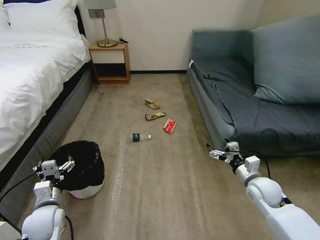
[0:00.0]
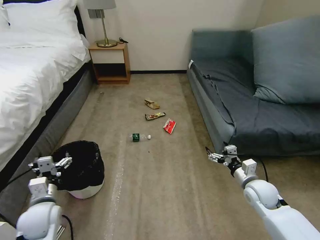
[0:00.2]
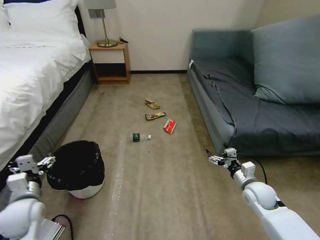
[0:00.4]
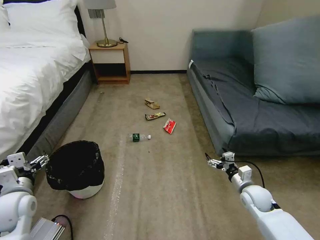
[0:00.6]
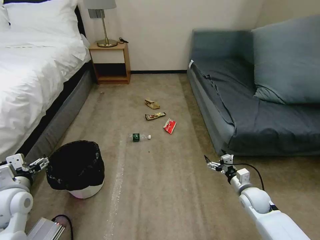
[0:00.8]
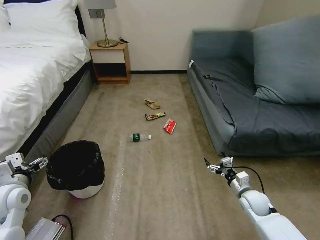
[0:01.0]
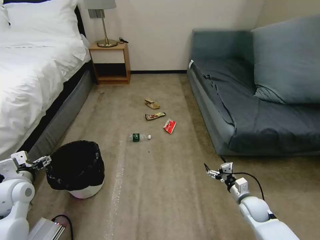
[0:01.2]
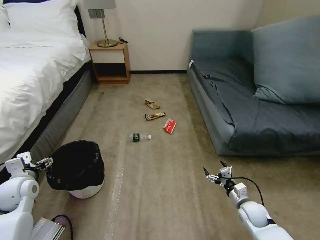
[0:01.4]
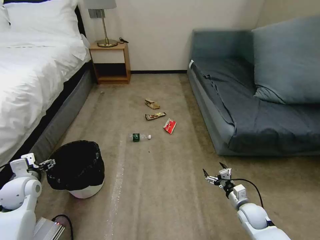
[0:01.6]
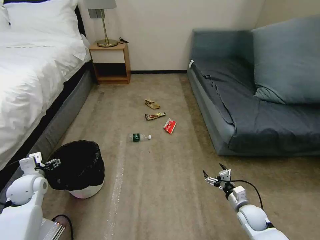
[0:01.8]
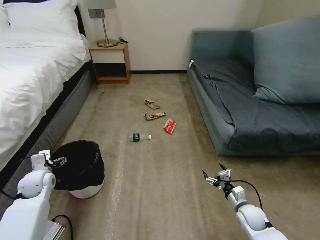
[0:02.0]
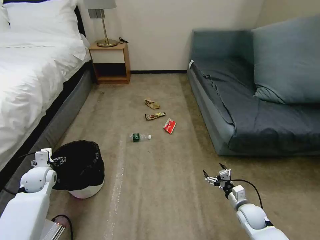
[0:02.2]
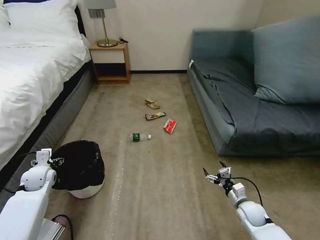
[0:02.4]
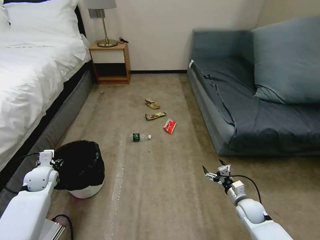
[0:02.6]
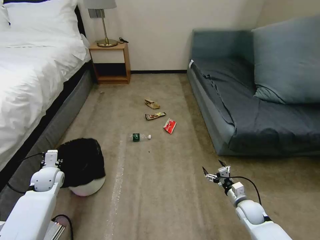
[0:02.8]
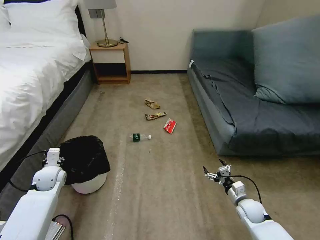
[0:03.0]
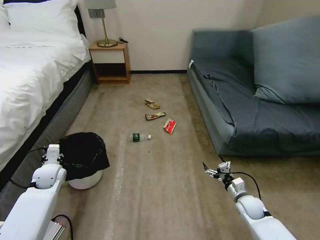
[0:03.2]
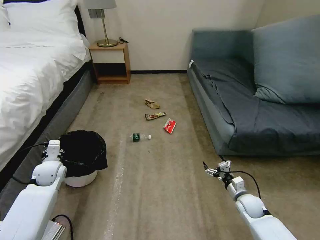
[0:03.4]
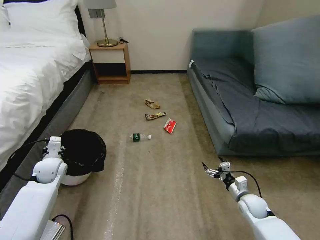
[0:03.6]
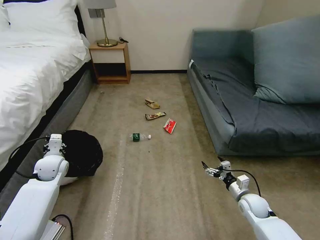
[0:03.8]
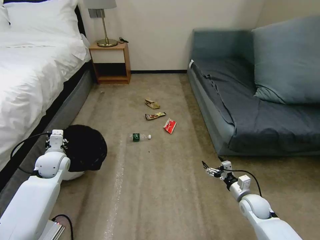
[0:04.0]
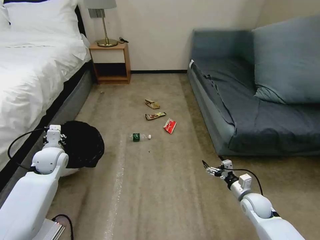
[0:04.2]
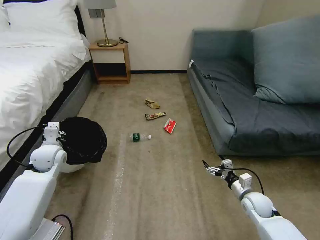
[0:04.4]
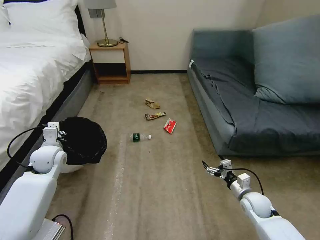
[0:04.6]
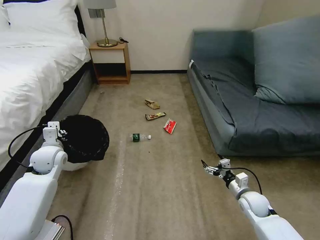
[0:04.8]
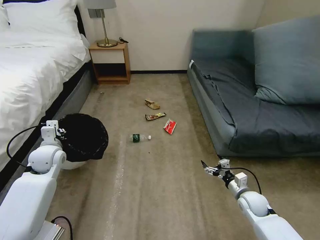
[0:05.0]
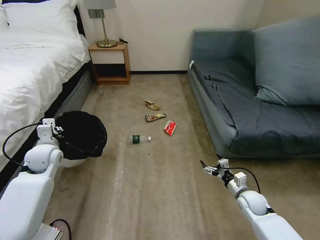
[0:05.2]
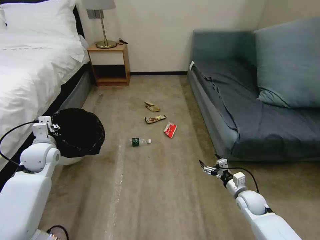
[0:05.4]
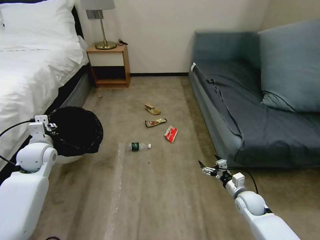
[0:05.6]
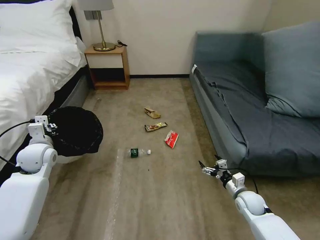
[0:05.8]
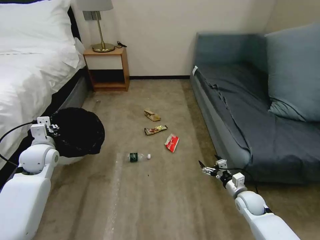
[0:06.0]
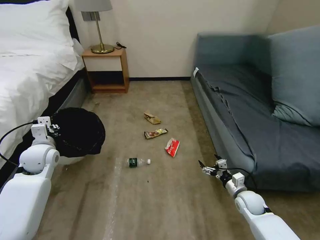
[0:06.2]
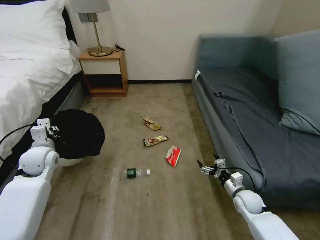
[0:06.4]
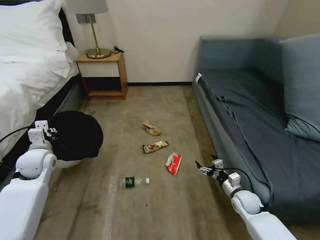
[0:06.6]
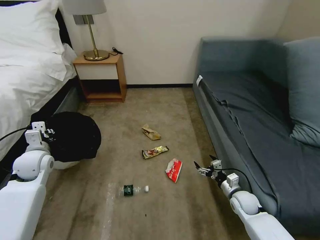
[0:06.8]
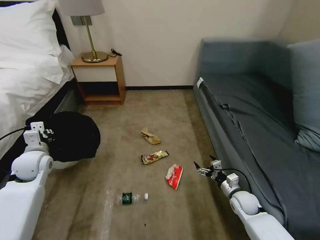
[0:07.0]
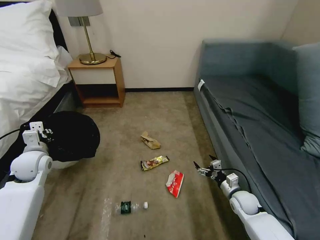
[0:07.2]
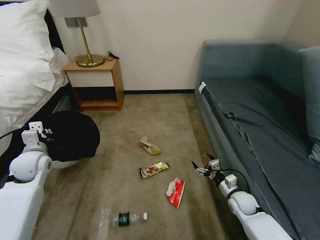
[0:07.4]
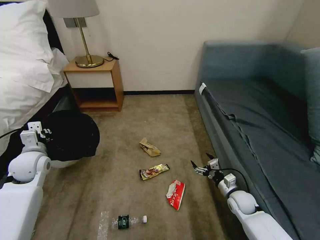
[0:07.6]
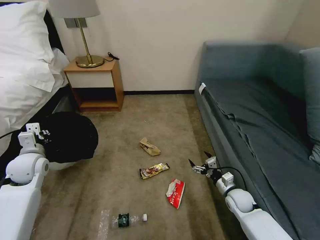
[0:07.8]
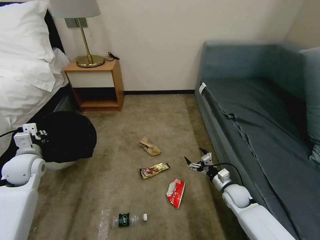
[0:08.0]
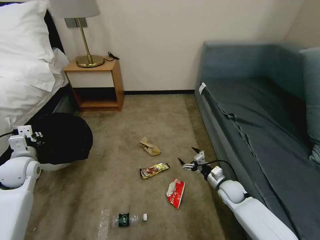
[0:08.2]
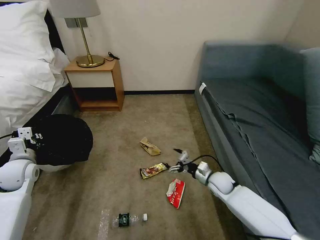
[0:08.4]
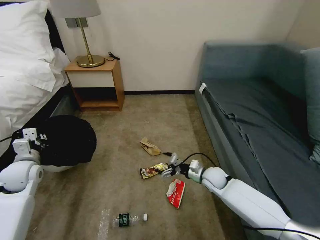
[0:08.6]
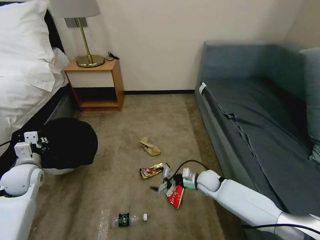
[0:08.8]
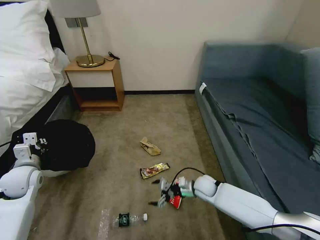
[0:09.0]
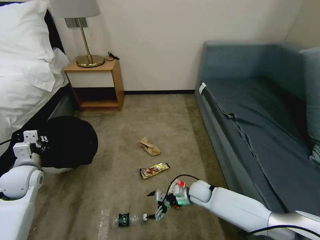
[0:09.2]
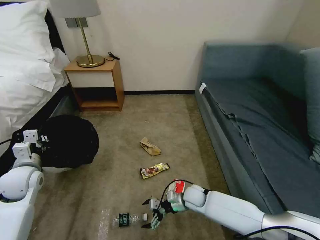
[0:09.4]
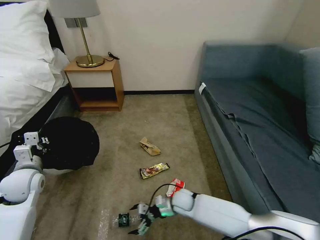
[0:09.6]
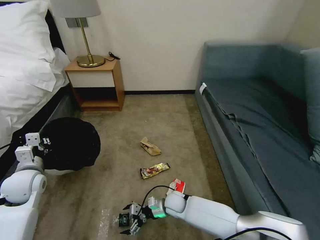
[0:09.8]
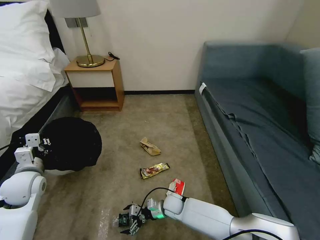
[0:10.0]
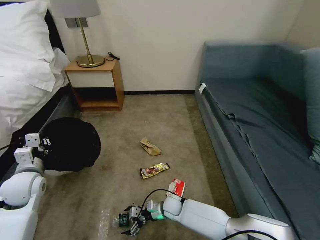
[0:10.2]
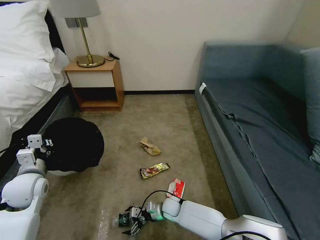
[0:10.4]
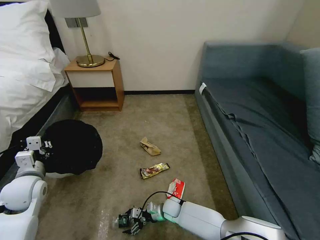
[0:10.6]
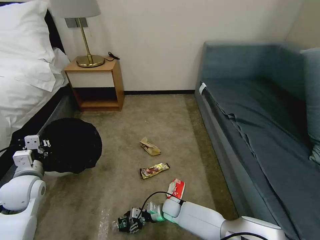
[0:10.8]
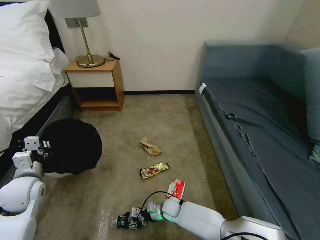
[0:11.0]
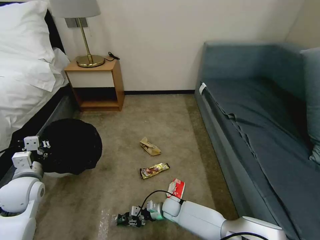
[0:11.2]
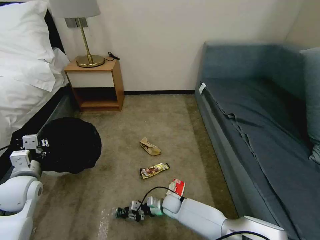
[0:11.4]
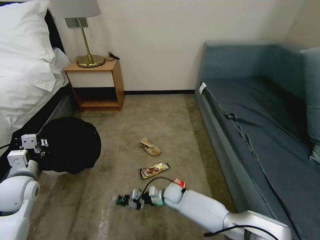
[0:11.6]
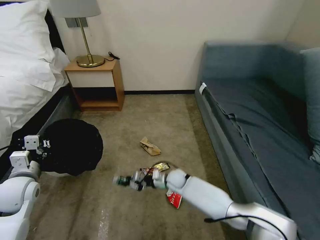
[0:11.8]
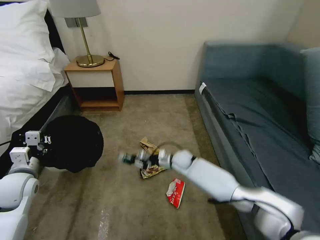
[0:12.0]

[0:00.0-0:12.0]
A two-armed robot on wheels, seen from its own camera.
Task of the whole recording: Pick up the trash bin, then pick up the garbage on the floor and place it into the trash bin.
0:00.0 to 0:01.6: The left gripper moves to the left and forward, roughly 10 cm; the right gripper goes roughly 15 cm downward.
0:01.6 to 0:03.0: The left gripper heads forward and downward, covering approximately 10 cm, and closes up.
0:03.0 to 0:04.4: The left gripper travels upward by approximately 10 cm. Meanwhile the right gripper moves approximately 5 cm.
0:07.6 to 0:09.0: The right gripper is displaced to the left and forward by about 15 cm.
0:09.0 to 0:10.4: The right gripper travels to the left and downward by some 15 cm. Meanwhile the left gripper ends up roughly 5 cm from where it was.
0:10.4 to 0:12.0: The right gripper heads forward and upward, covering roughly 20 cm, and closes its fingers.

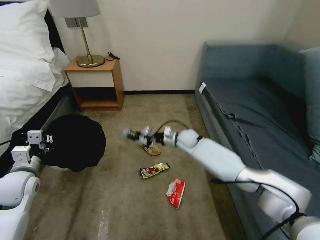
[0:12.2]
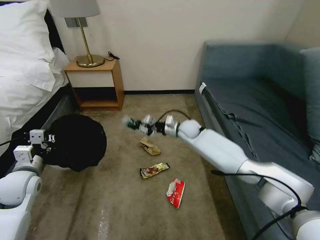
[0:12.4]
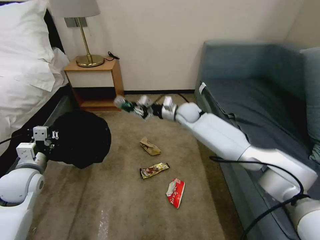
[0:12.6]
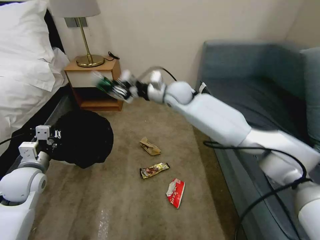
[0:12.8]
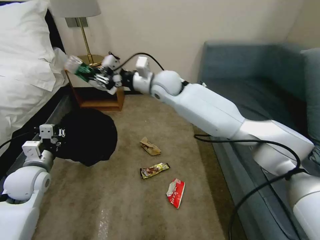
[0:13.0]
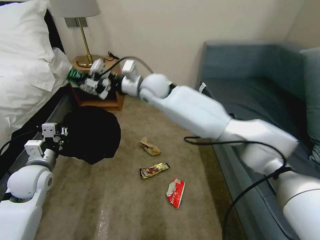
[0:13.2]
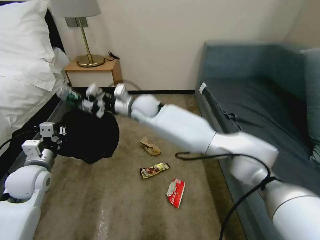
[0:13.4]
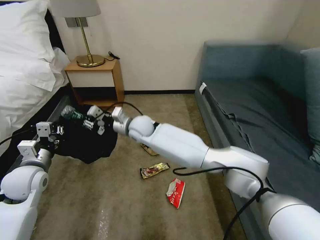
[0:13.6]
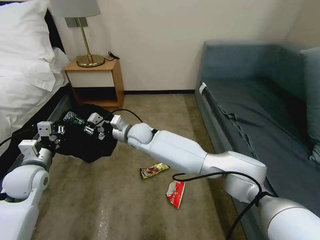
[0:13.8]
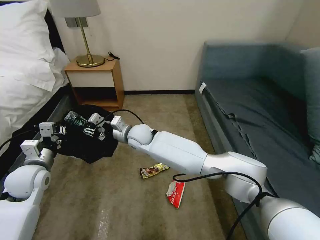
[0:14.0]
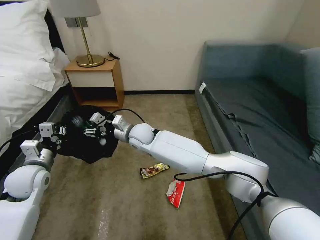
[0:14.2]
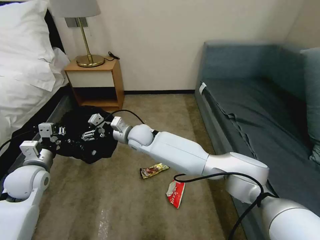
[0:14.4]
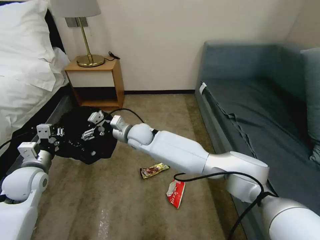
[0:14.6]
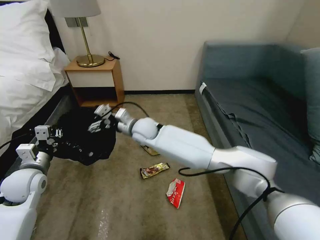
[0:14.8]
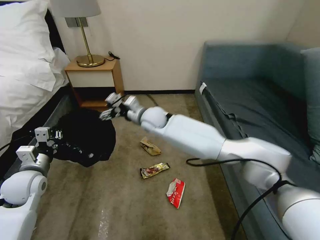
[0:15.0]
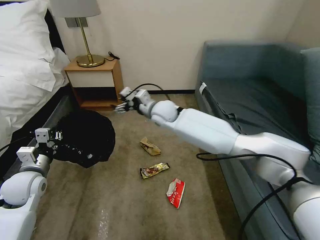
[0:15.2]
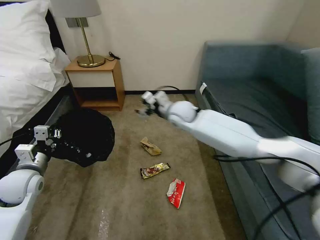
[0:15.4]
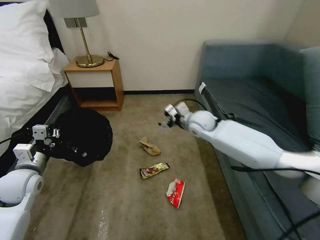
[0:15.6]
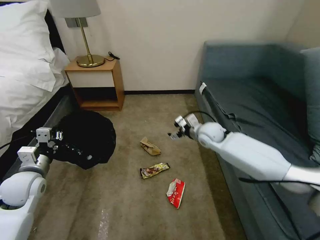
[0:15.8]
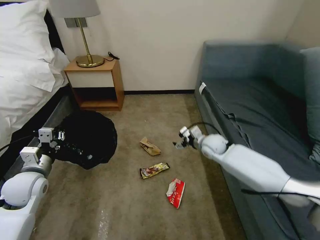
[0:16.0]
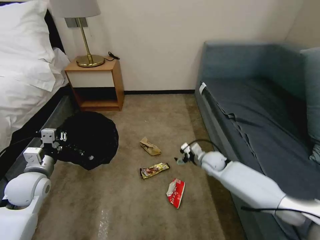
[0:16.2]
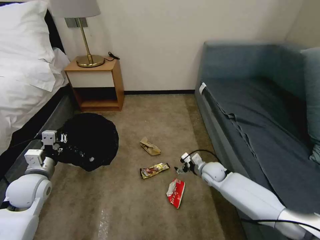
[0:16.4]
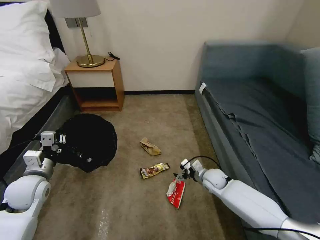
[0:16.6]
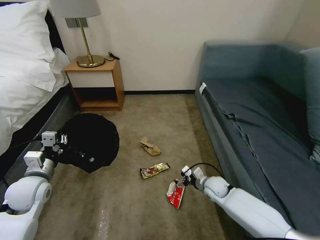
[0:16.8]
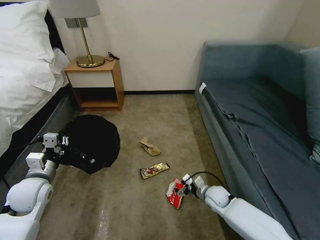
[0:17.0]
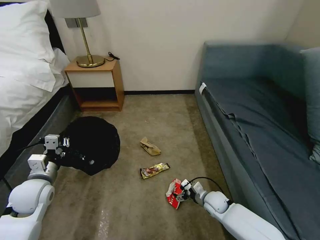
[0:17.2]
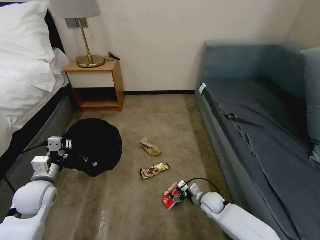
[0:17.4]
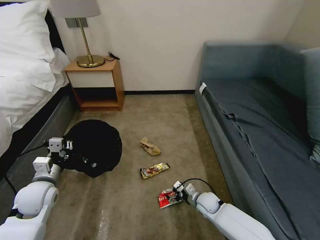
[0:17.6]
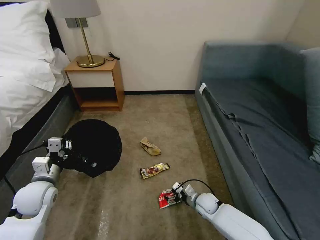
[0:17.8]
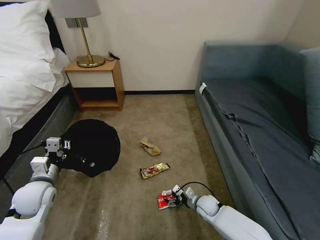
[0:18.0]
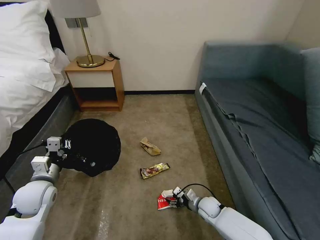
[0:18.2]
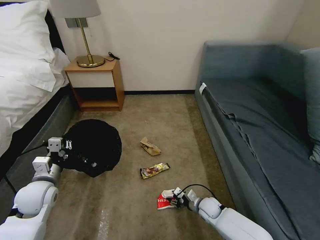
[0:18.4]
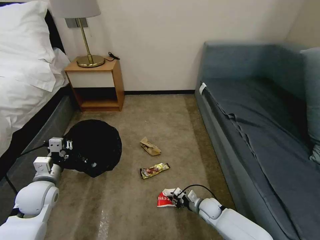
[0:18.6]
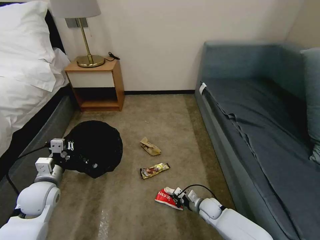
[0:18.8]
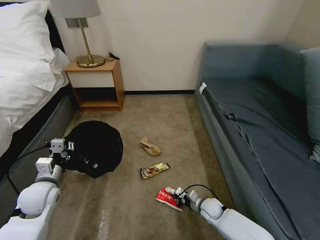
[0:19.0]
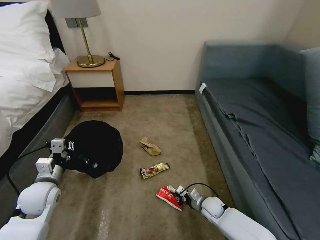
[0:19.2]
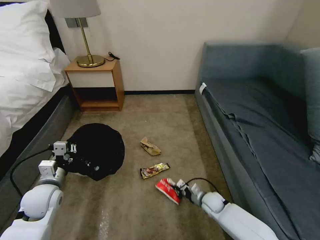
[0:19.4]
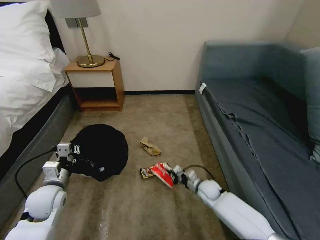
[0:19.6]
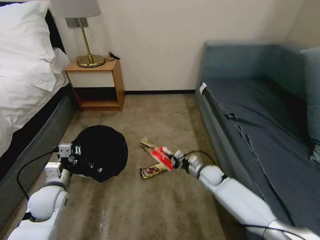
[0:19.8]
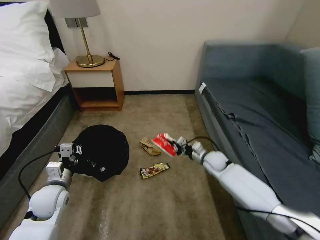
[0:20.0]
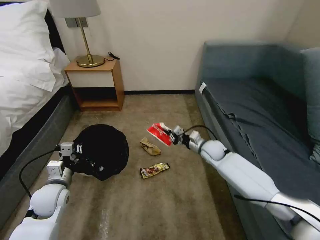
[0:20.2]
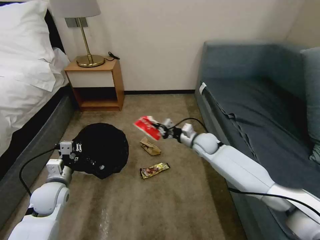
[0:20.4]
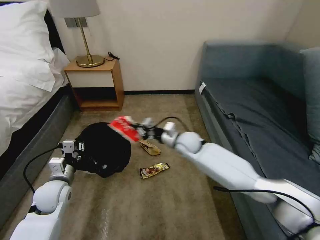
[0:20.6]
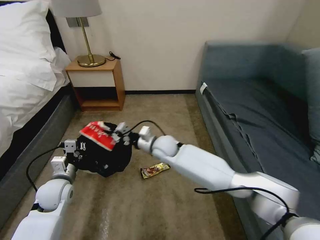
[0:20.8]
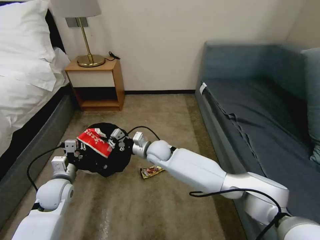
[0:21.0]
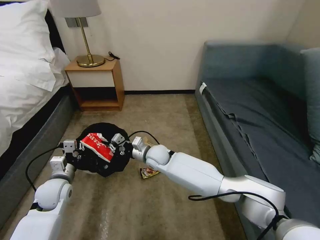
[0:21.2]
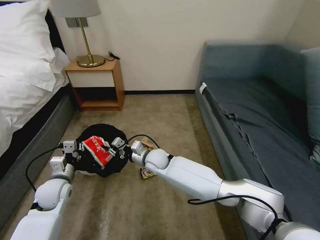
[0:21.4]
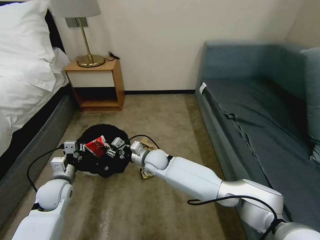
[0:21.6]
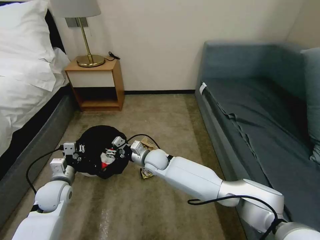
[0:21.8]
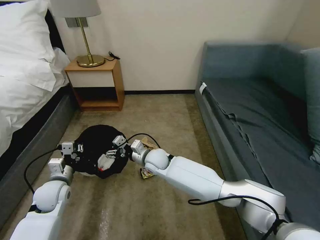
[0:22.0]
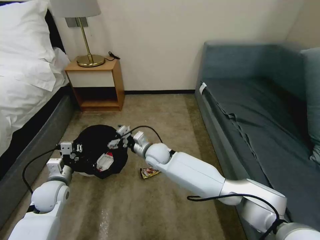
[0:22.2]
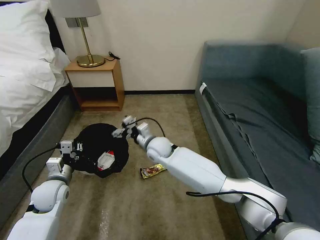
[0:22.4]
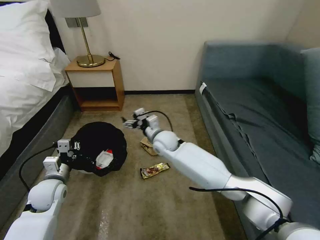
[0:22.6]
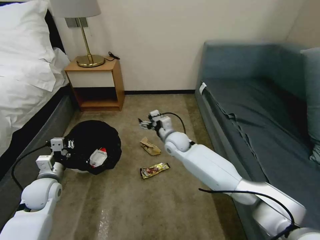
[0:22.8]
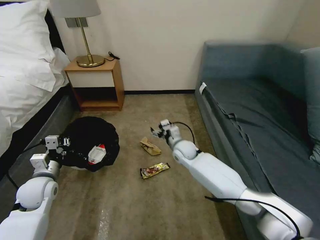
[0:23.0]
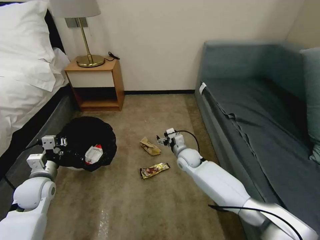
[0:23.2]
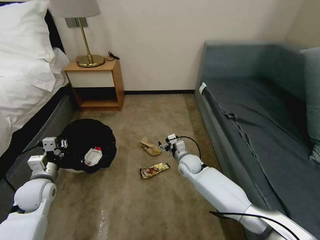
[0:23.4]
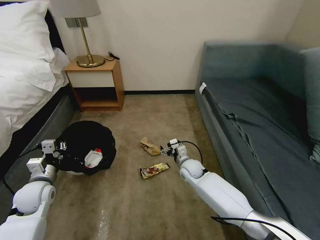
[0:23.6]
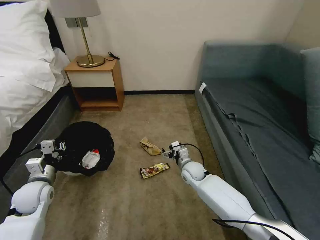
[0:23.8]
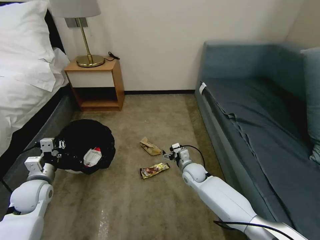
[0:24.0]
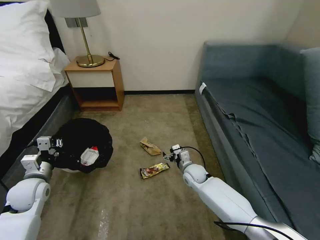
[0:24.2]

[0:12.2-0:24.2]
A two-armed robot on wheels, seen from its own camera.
Task of the whole recording: Pick up the trash bin, then pick up the garbage on the floor and place it into the trash bin.
0:12.2 to 0:13.8: The right gripper goes about 20 cm to the left, and travels upward and back again, about 25 cm each way.
0:13.8 to 0:15.2: The right gripper goes about 10 cm to the right and upward, and opens its fingers.
0:15.2 to 0:16.6: The right gripper travels downward, to the right and backward by approximately 35 cm.
0:16.6 to 0:18.2: The right gripper is displaced downward and backward by some 15 cm.
0:18.2 to 0:19.8: The right gripper is displaced forward and upward by approximately 15 cm, and closes.
0:19.8 to 0:21.2: The right gripper shifts about 25 cm to the left and upward.
0:21.2 to 0:22.6: The right gripper travels upward by roughly 5 cm, and opens its fingers.
0:22.6 to 0:24.2: The left gripper ends up roughly 5 cm from where it was. Meanwhile the right gripper shifts about 20 cm downward and to the right.
